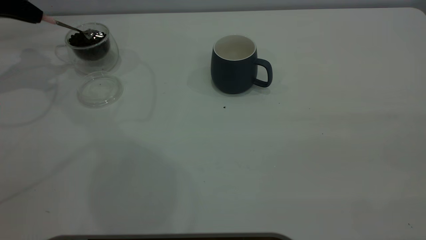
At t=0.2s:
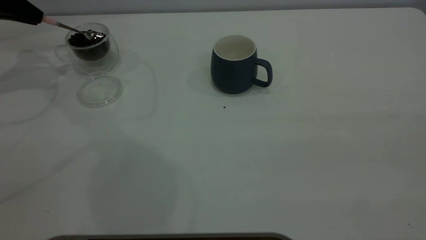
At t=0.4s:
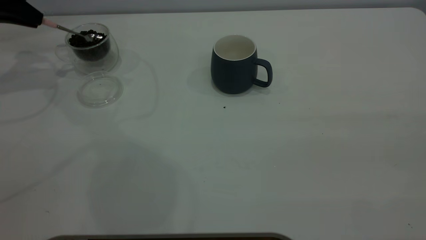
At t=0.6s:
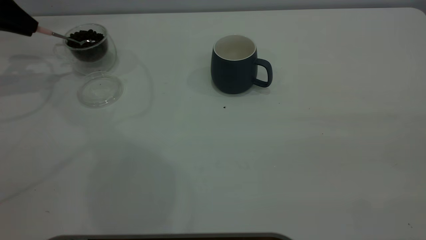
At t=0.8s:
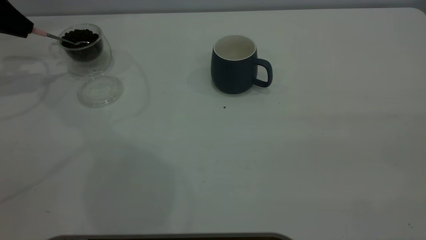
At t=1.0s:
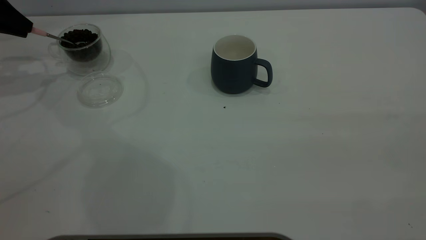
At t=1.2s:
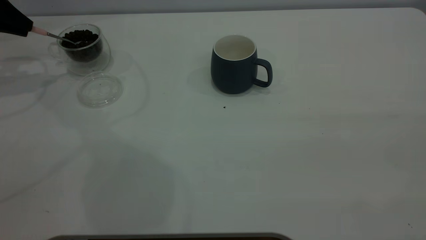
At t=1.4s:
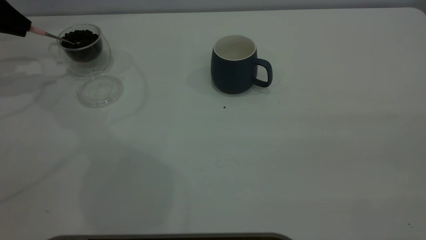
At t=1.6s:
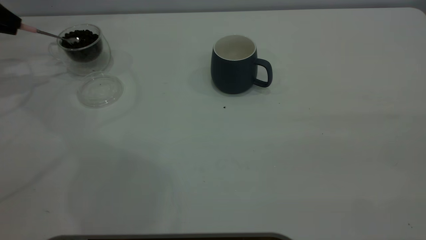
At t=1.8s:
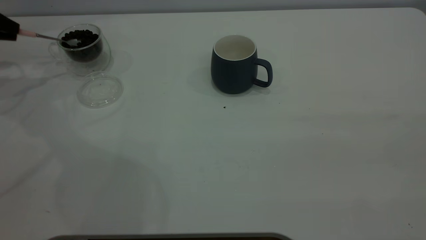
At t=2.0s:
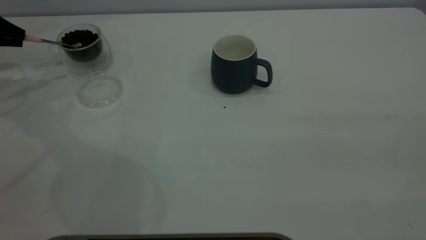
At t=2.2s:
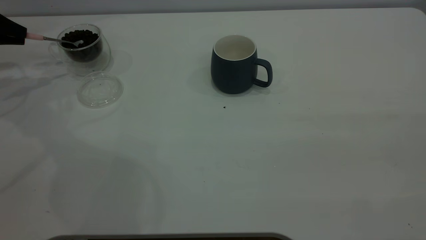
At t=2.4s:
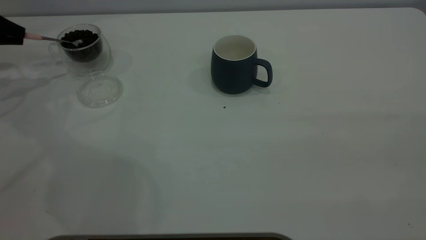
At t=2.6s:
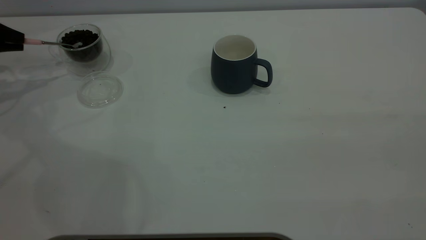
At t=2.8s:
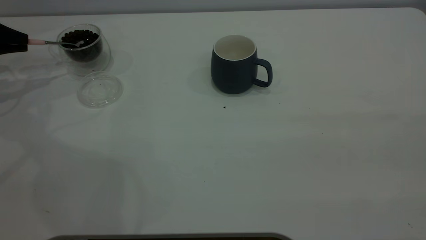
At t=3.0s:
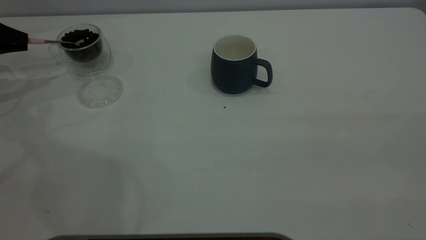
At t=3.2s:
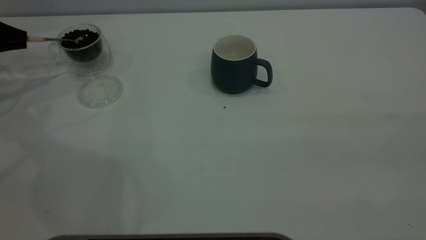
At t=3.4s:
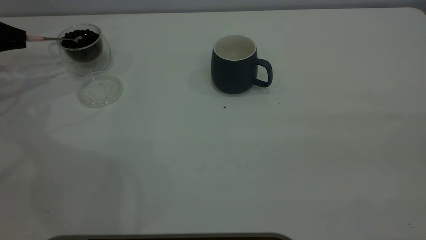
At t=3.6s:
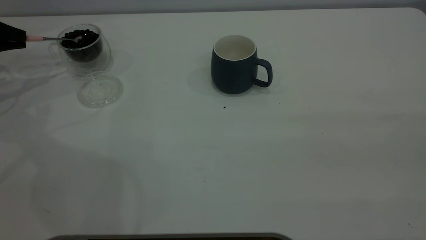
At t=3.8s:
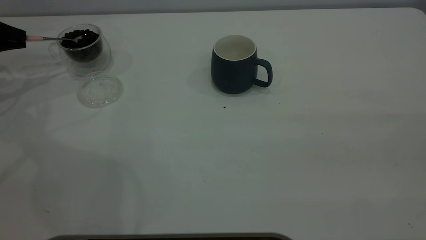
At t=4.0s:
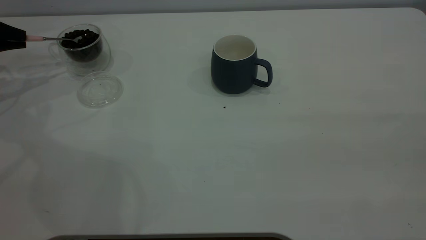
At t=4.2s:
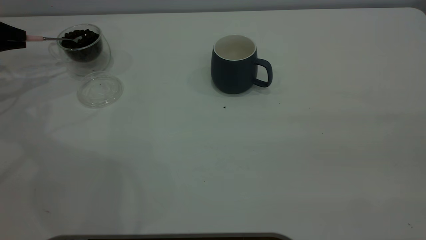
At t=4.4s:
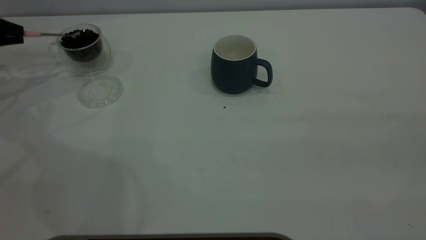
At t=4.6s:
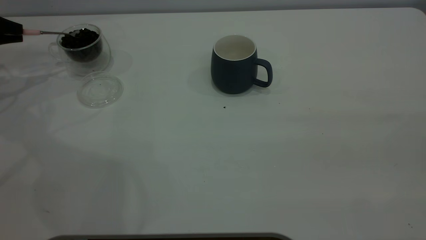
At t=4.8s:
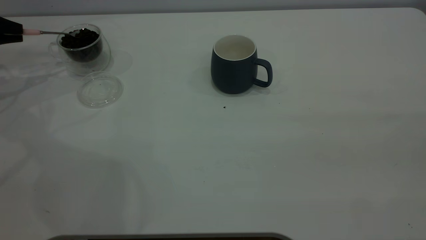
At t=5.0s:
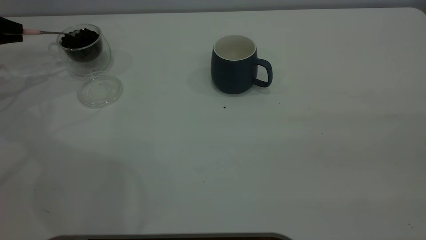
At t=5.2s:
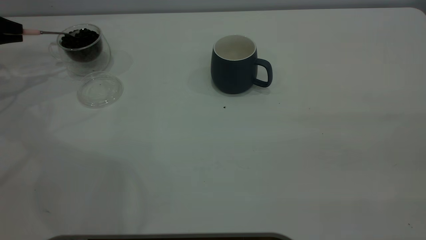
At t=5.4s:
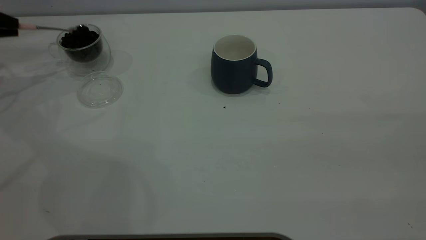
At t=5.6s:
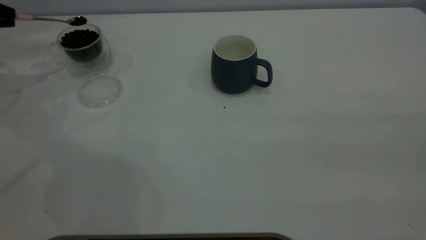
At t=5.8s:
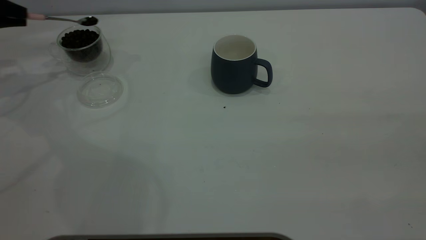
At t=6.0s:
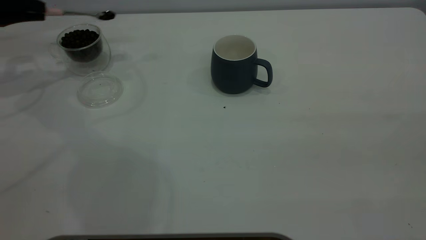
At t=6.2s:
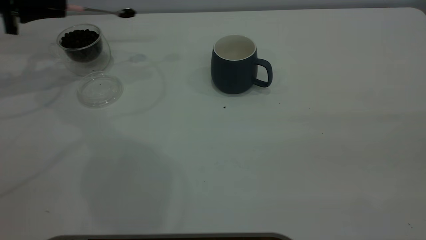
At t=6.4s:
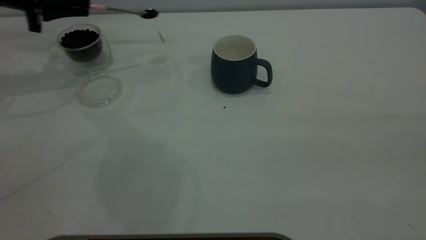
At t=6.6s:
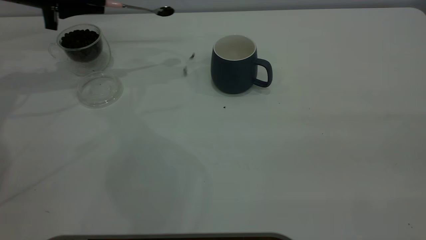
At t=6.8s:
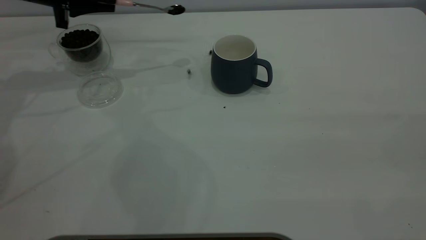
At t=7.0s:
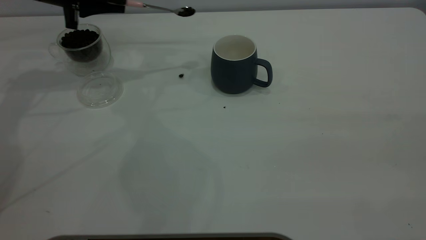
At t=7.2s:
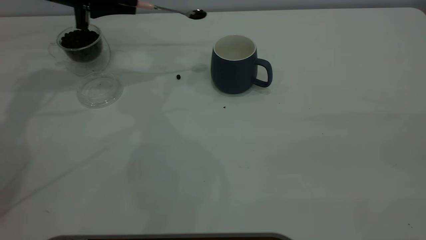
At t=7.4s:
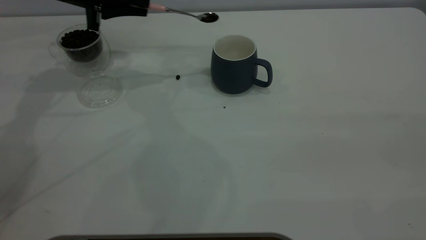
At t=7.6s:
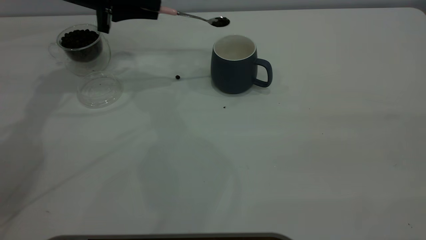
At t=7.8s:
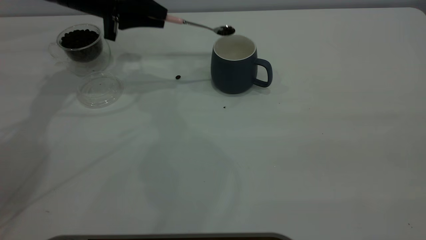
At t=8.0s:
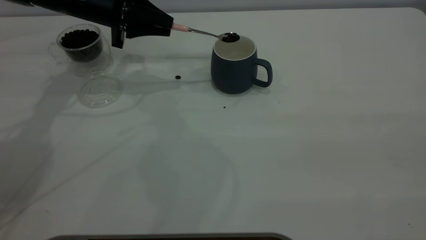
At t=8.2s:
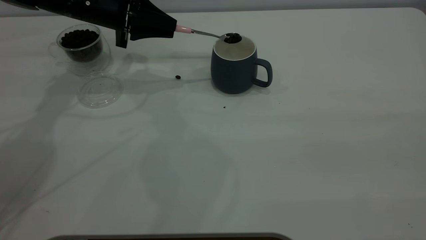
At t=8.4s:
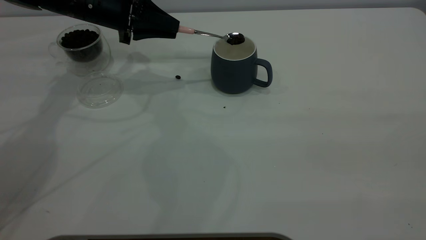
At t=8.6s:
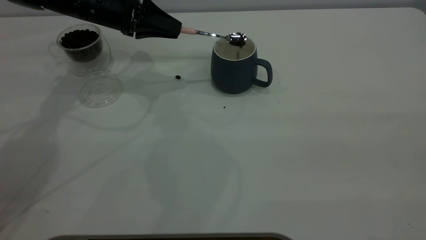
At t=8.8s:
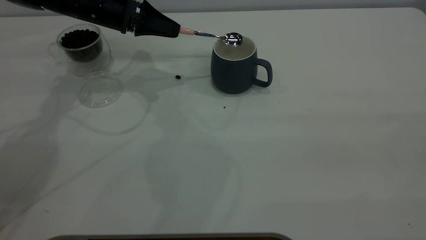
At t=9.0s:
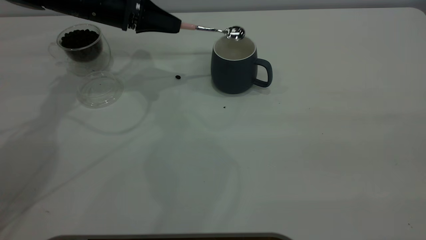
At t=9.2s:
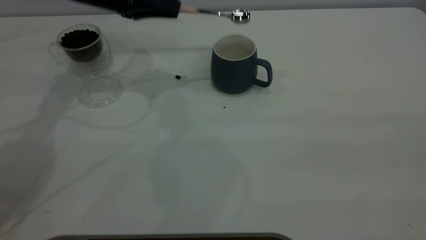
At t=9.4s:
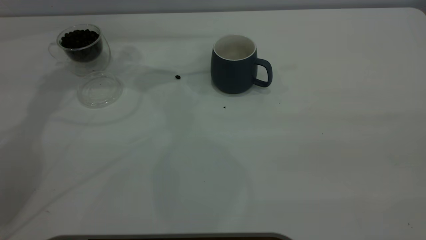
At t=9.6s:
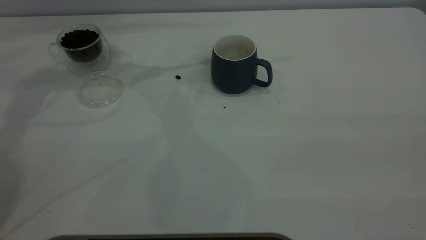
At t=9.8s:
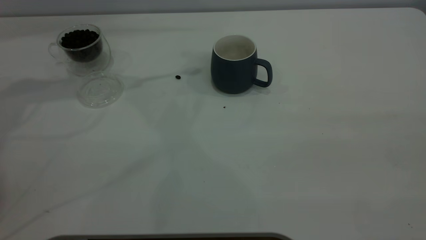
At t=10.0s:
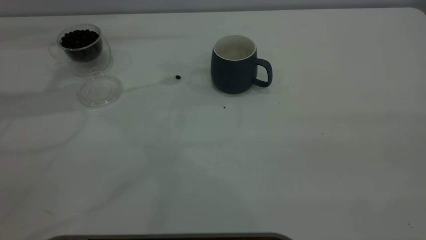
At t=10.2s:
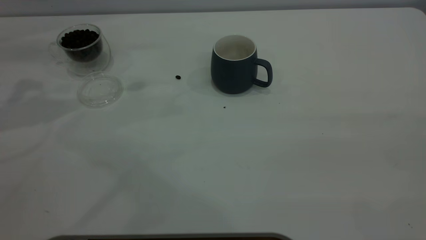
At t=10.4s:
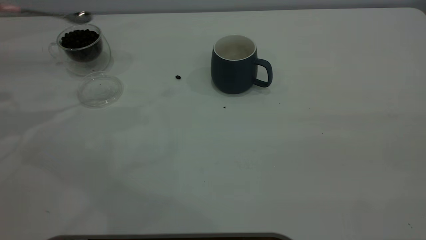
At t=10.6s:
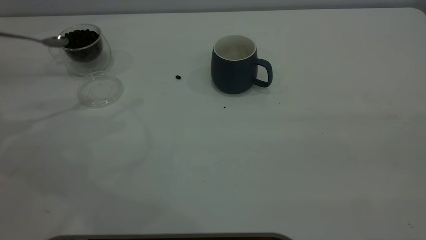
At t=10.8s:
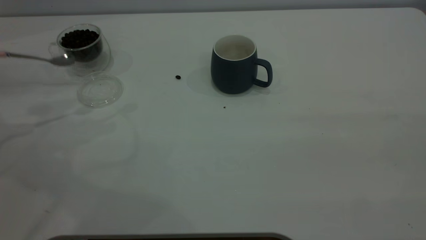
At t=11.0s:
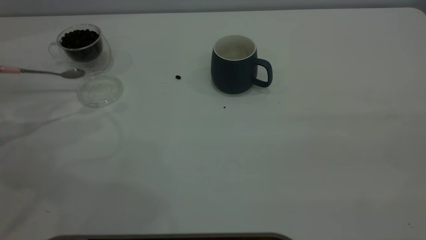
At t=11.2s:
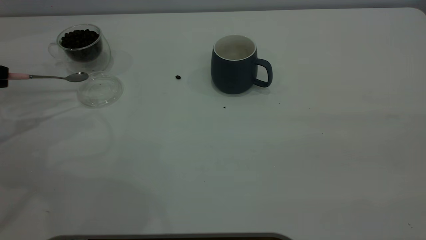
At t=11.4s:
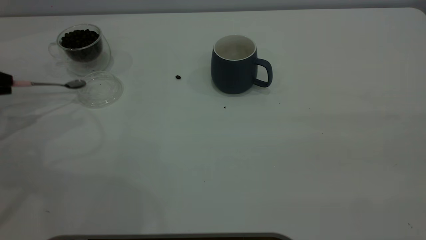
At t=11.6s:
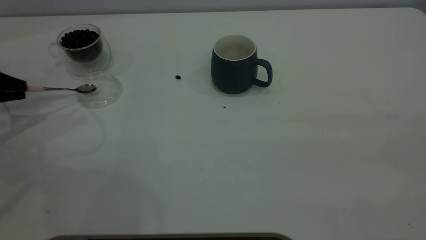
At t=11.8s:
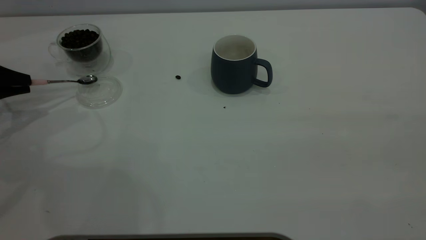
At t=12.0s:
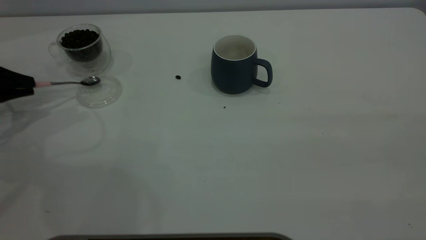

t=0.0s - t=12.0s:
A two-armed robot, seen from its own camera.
Task of the whole recording: the right gripper place the grey cup in the center of the table, the left gripper take the pink spoon from the cup lid and scoop out the coffee beans from the coffee cup and put them into the grey cup, the left gripper put the spoon back into the cup lid.
Step, t=0.0s - t=9.0s: Scoop a spoonful of beans into the cup.
t=1.6s - t=3.0s: The left gripper is displaced downward by approximately 5 cm.
t=3.0s - t=4.4s: Both grippers stay put.
t=4.4s - t=6.0s: The left gripper goes some 5 cm to the right.
t=6.0s - t=7.6s: The left gripper is displaced to the right by roughly 20 cm.
t=9.0s - t=10.4s: The left gripper travels to the left, backward and upward by roughly 30 cm.
t=10.4s - t=12.0s: The left gripper goes roughly 15 cm downward.

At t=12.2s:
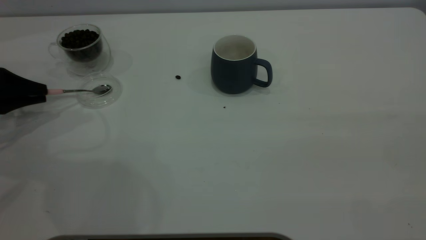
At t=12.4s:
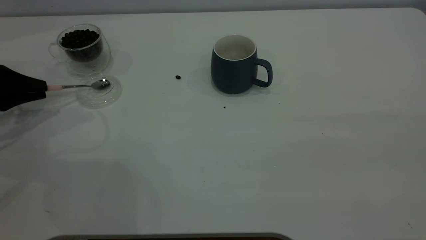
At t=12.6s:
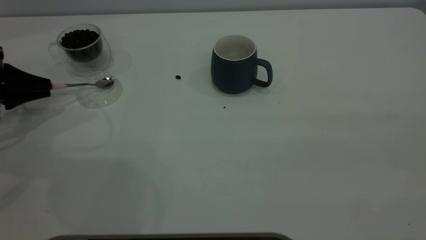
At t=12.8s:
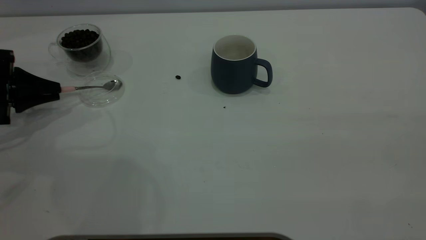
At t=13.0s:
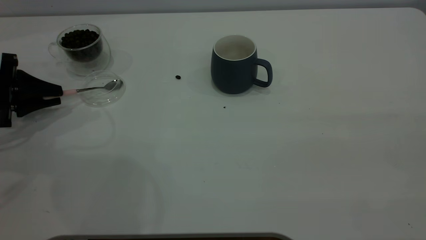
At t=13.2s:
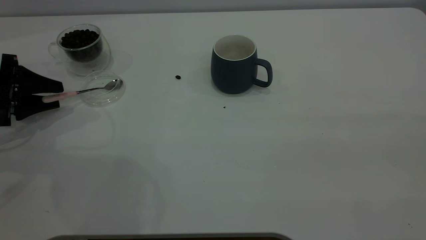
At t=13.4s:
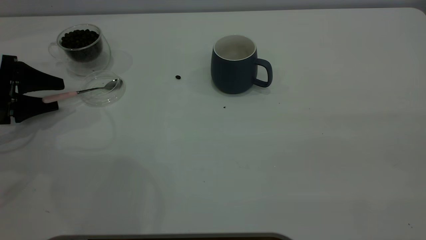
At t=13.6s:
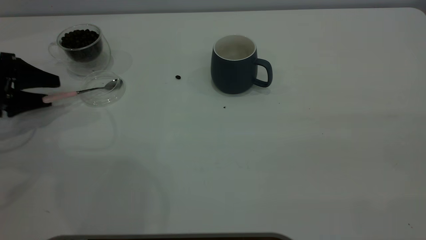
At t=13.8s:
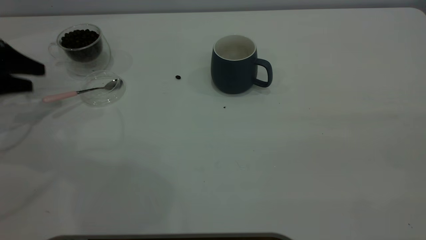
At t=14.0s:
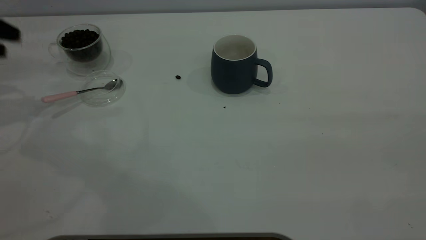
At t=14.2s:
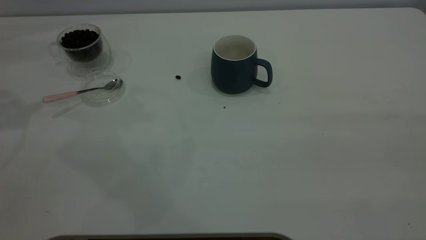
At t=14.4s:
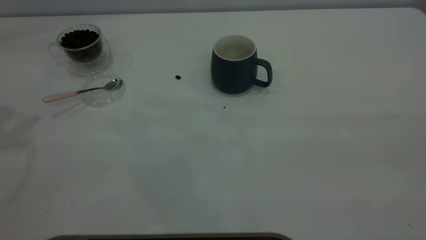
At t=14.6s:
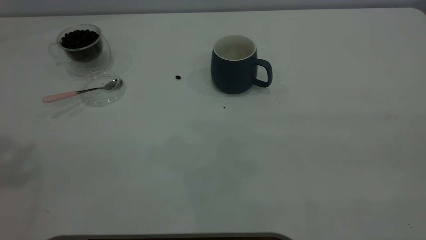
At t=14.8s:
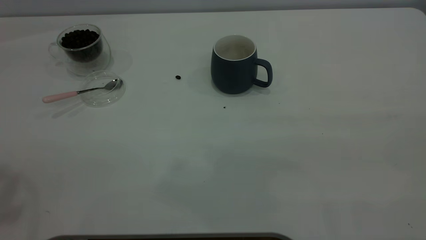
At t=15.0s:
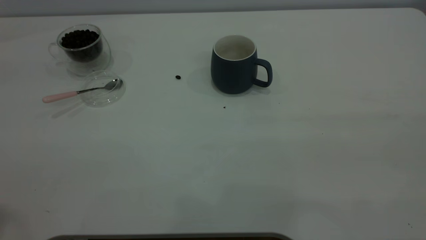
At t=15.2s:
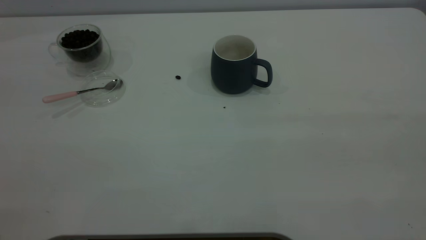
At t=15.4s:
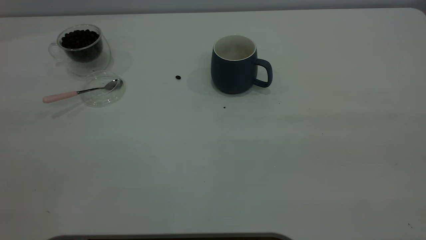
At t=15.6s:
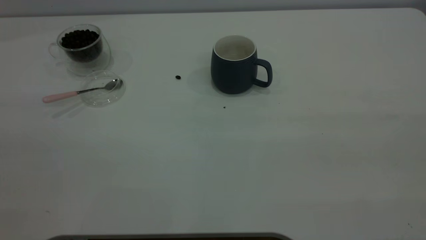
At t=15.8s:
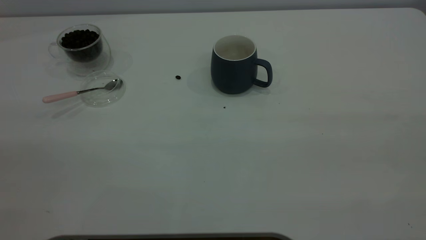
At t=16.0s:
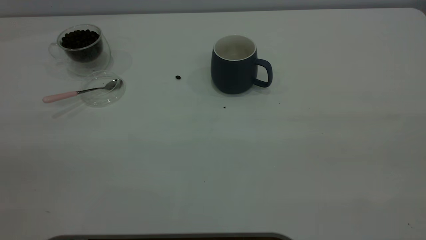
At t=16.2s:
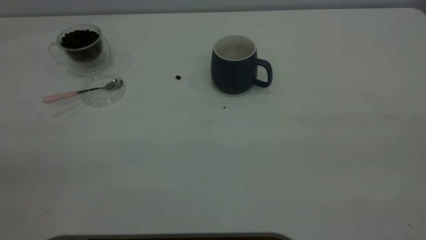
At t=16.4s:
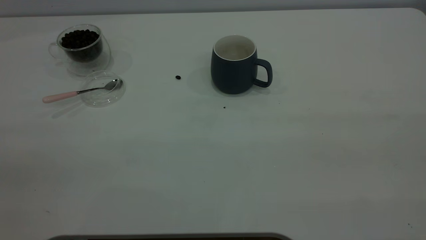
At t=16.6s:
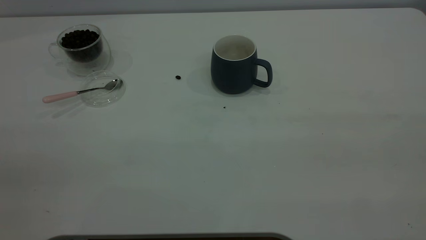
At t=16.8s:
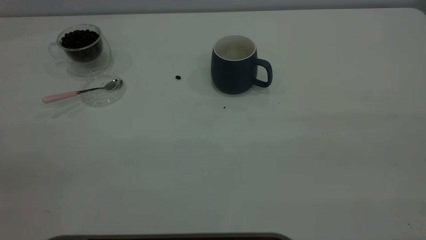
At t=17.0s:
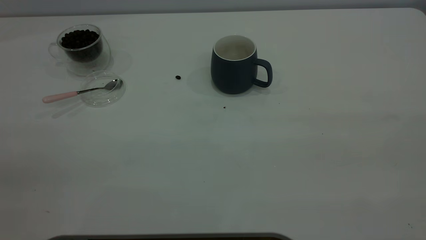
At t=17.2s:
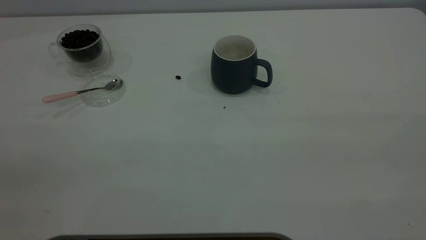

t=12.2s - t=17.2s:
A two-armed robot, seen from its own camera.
Task of the whole recording: the right gripper place the grey cup in the center of the table, the left gripper take the pink spoon from the cup lid and scoop out the coffee beans from the coffee cup and put them into the grey cup, the left gripper put the spoon back into the cup lid.
t=12.2s - t=13.8s: The left gripper shifts about 5 cm upward, and opens its fingers.
t=13.8s - t=15.6s: The left gripper travels backward and upward by roughly 40 cm.
